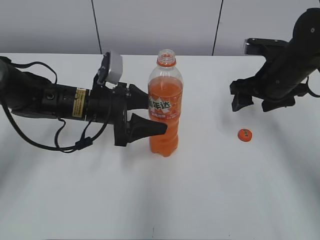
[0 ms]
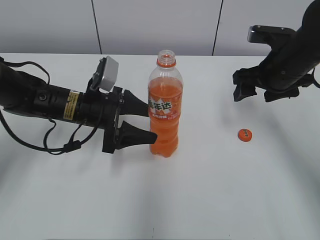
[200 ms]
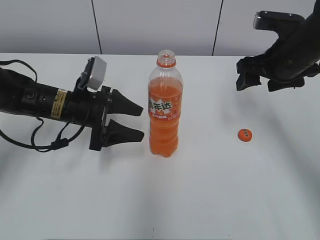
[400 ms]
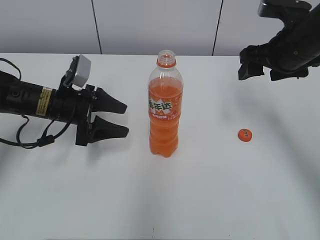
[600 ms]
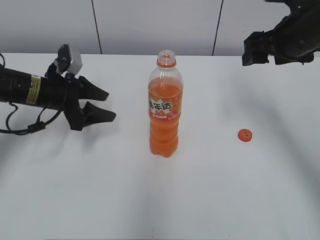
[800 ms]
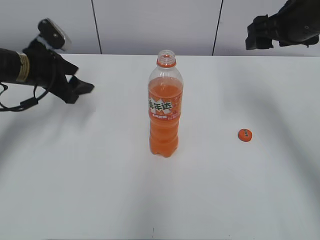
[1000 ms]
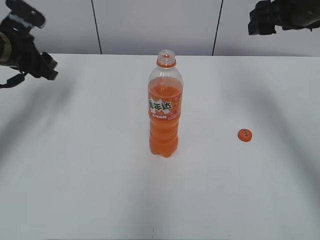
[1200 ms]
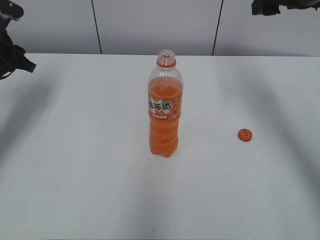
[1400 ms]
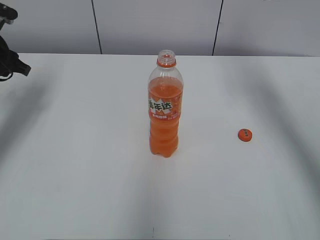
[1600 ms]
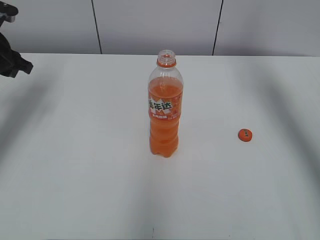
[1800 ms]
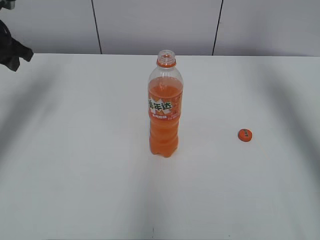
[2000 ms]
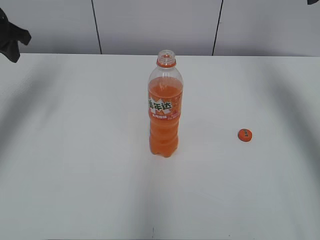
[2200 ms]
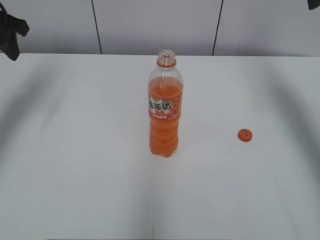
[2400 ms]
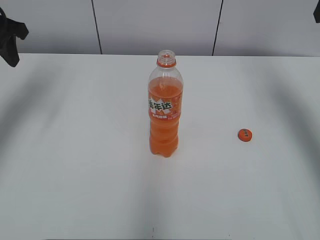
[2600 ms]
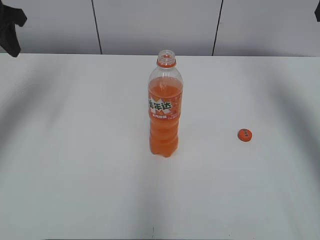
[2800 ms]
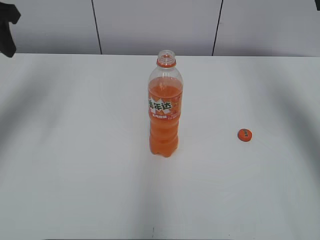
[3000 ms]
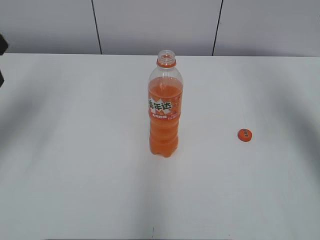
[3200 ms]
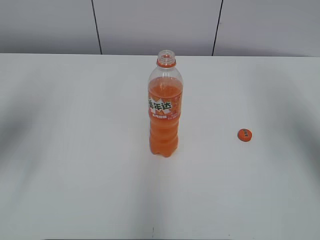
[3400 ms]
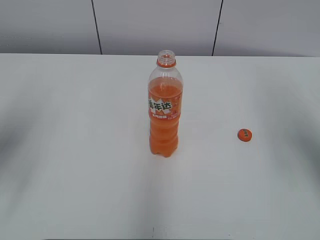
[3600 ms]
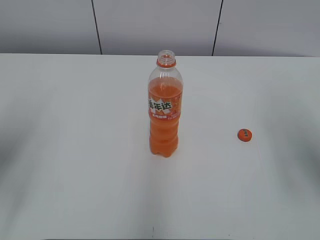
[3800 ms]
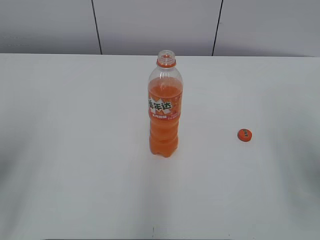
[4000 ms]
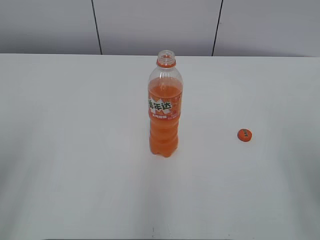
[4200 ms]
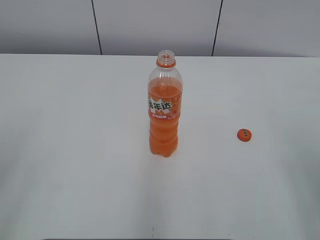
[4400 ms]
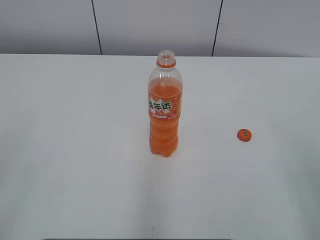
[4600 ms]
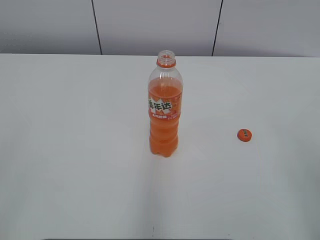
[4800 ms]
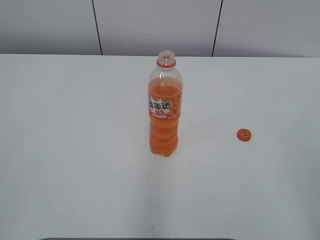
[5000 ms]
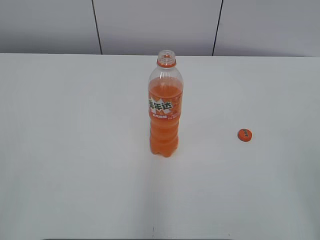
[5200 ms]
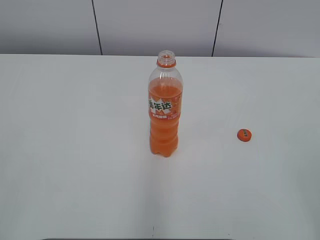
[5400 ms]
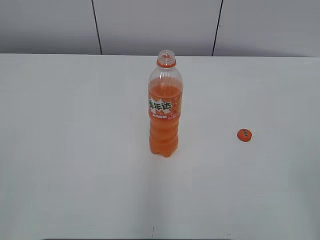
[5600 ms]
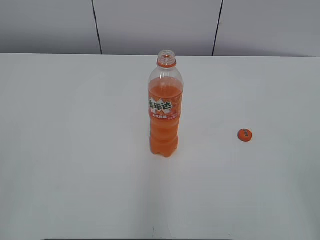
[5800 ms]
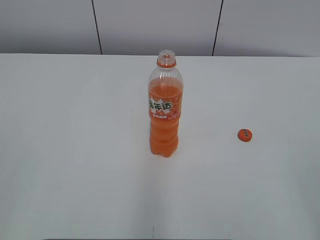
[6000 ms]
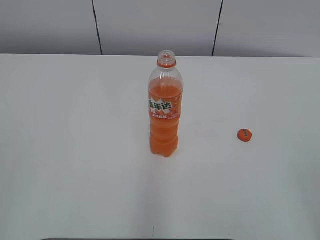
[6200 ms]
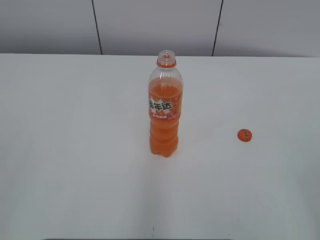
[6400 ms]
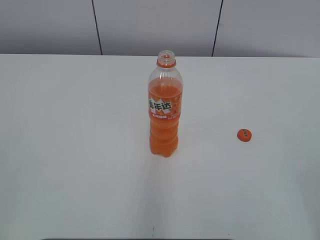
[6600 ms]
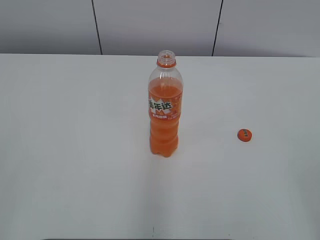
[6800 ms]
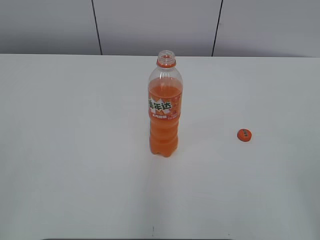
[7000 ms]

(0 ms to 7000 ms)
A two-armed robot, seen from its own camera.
0 ms - 1400 ms: The right gripper goes about 15 cm upward. The left gripper shifts some 20 cm to the left and upward, and closes.
1400 ms - 2800 ms: The right gripper goes about 10 cm to the right and upward. The left gripper heads upward, covering approximately 10 cm.
2800 ms - 4200 ms: The right gripper moves backward and downward, roughly 25 cm; the left gripper moves backward, some 25 cm.
